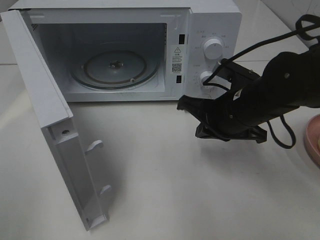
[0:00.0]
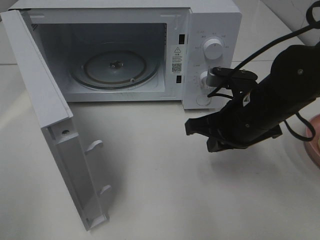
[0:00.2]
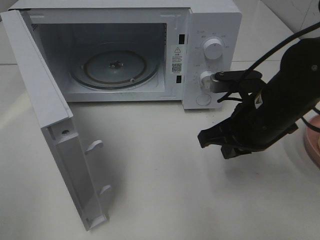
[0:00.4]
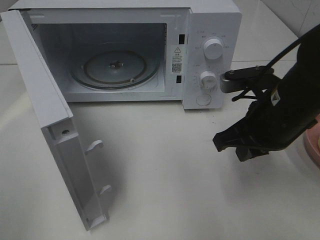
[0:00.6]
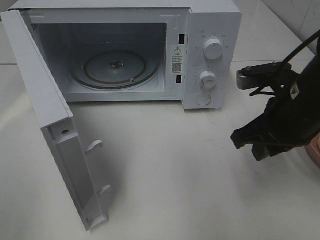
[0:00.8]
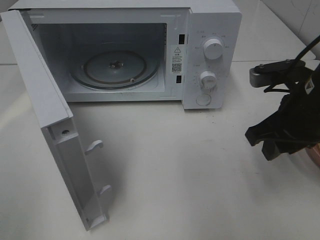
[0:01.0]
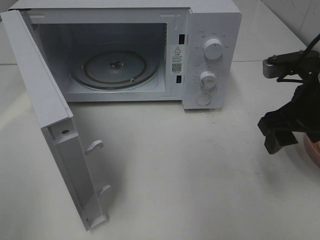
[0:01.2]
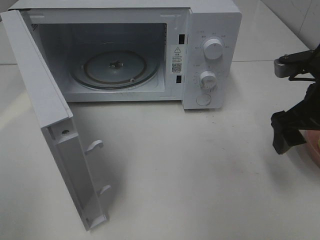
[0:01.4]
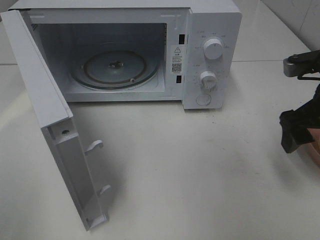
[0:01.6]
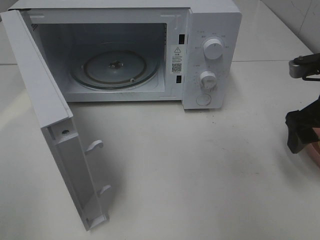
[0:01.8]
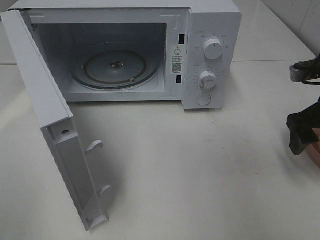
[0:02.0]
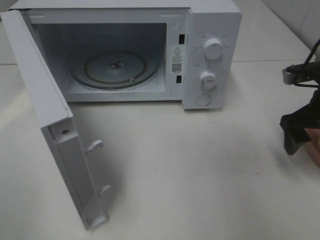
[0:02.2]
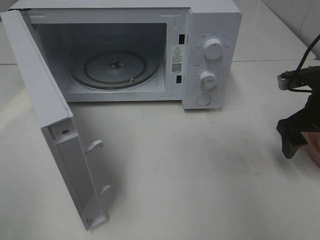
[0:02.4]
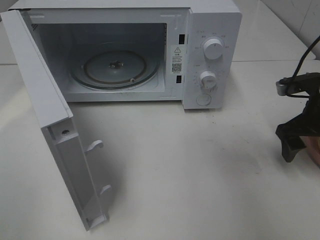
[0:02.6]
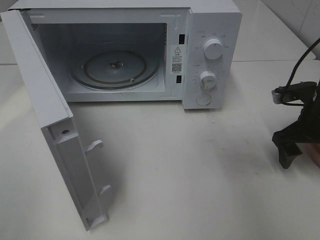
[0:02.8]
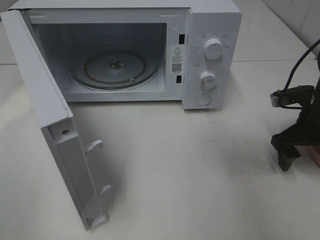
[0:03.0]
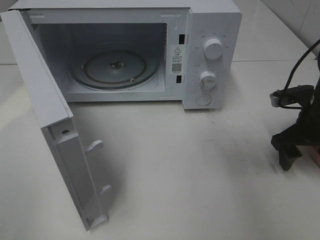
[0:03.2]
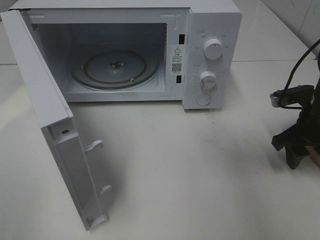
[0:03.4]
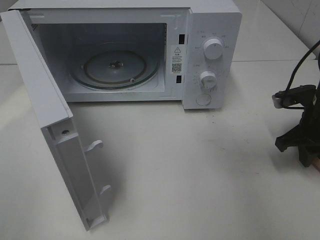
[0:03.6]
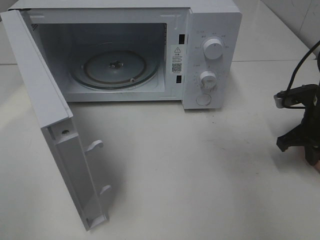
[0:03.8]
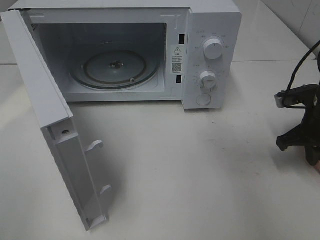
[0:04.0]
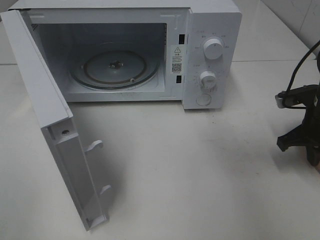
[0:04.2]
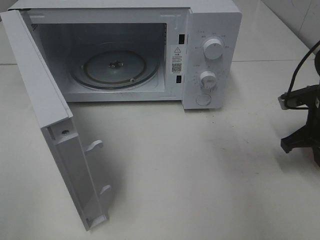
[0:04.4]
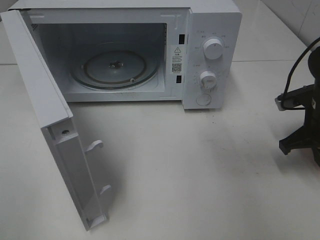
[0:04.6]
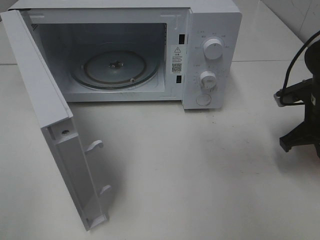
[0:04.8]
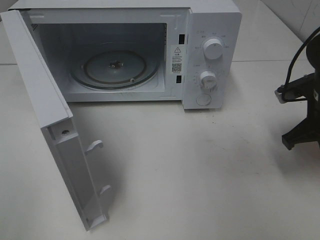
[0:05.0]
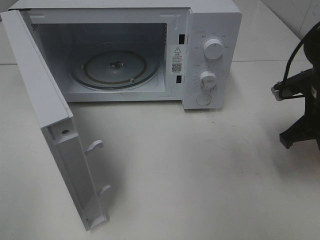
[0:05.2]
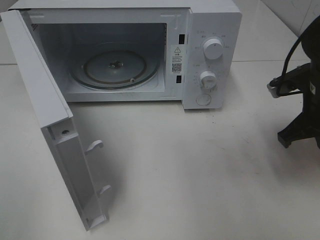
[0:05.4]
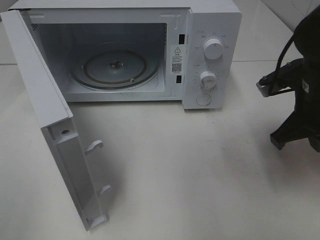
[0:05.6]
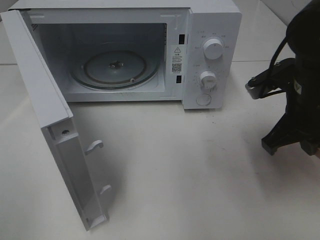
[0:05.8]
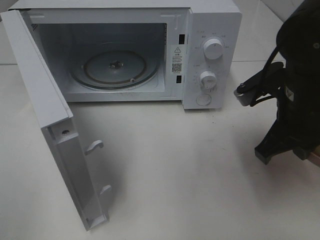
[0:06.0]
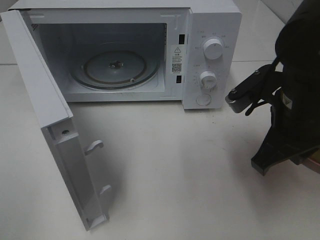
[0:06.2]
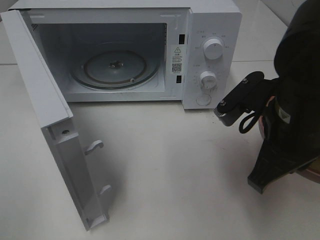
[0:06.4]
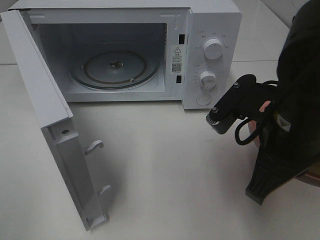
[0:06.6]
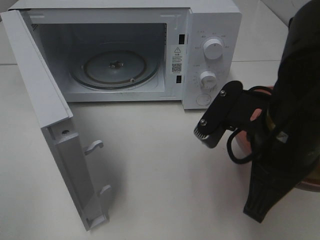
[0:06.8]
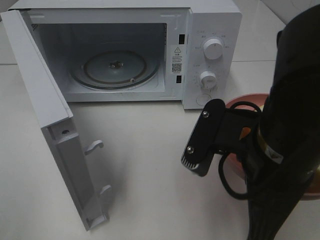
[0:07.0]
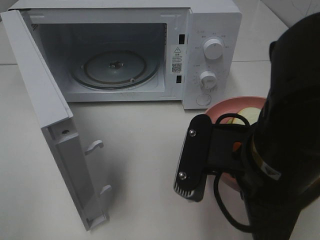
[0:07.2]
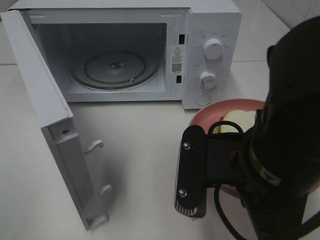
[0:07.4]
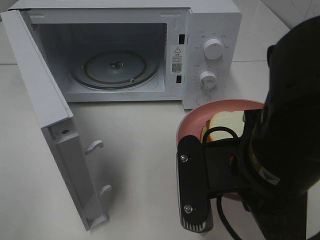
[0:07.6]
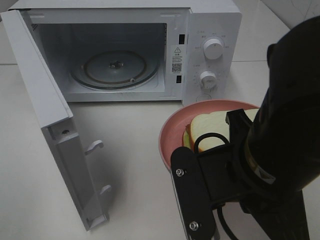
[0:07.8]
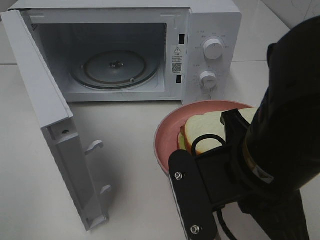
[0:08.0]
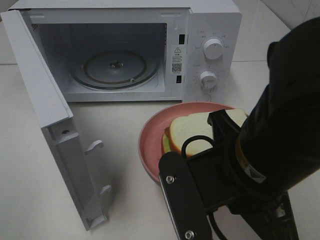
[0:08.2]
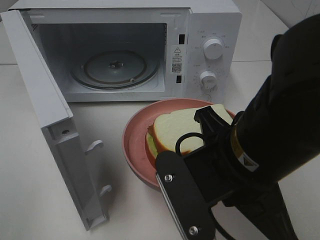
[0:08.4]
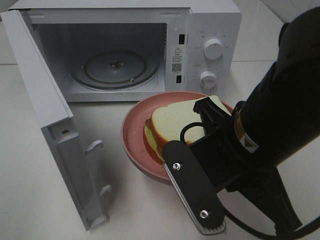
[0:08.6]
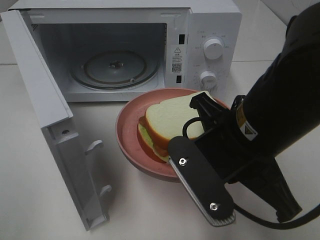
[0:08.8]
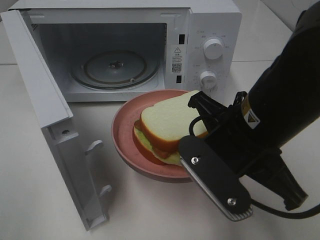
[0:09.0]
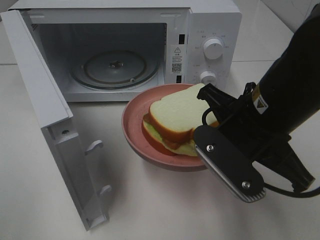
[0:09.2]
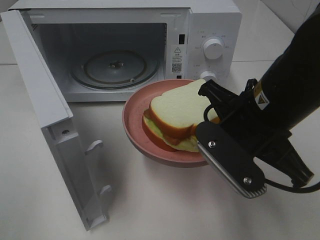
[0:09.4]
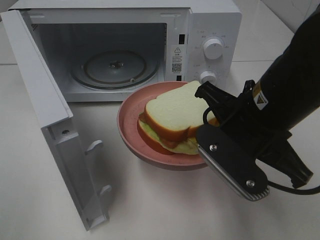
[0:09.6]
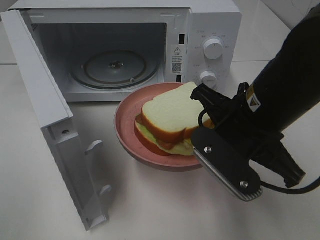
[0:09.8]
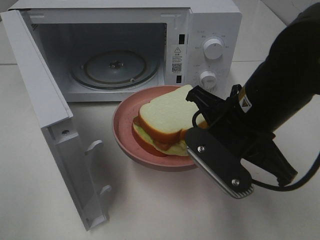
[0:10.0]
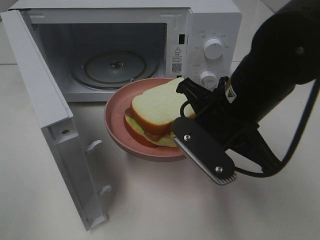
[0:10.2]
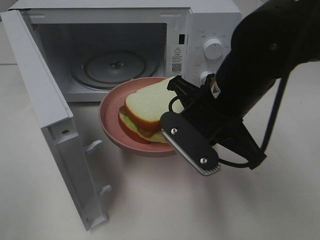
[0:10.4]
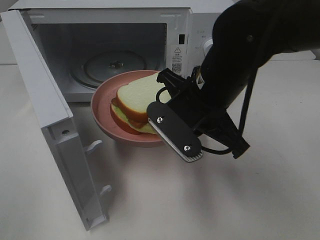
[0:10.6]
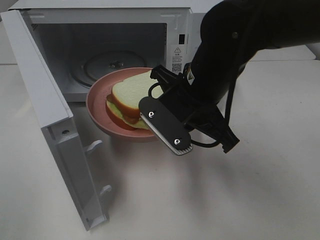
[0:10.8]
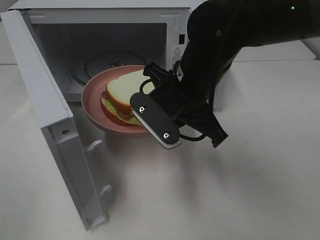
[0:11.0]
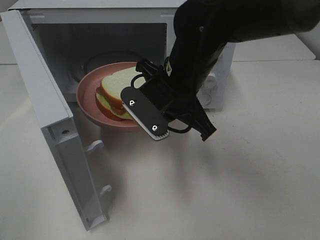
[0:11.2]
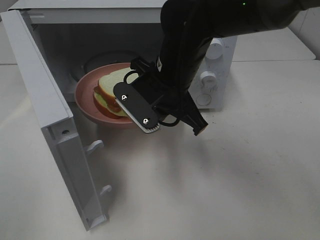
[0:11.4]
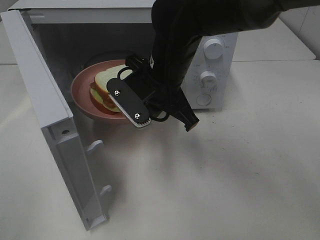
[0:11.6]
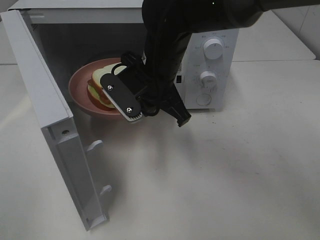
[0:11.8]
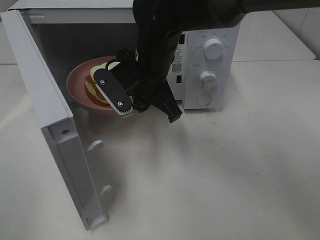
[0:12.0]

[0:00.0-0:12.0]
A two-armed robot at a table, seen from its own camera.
Task of the whole recording: Heat Sandwich.
Step, 0:00.0 to 0:04.6: Right hand: grab the plate with the sandwich.
0:00.0 to 0:01.6: The right gripper travels to the right and upward by roughly 15 cm, and opens its fingers.
0:01.6 to 0:03.0: The right gripper shifts approximately 10 cm downward and forward.
0:03.0 to 0:04.4: The right gripper closes up.
0:04.4 to 0:06.0: The right gripper moves to the left, upward and backward, approximately 15 cm.
0:06.0 to 0:07.6: The right gripper goes some 15 cm backward and to the left.
0:07.6 to 0:09.0: The right gripper moves forward, roughly 5 cm.
0:09.0 to 0:10.4: The right gripper is displaced forward by approximately 5 cm.
0:10.4 to 0:12.0: The right gripper moves forward and to the left, about 15 cm.

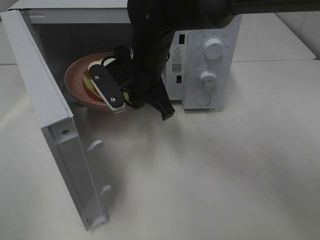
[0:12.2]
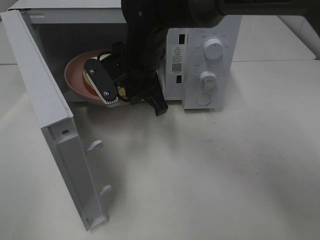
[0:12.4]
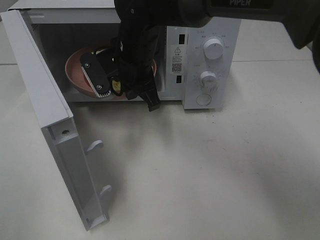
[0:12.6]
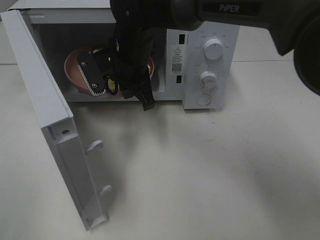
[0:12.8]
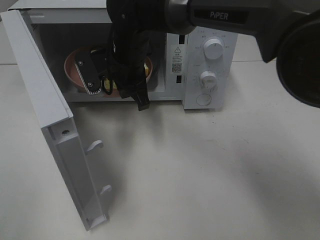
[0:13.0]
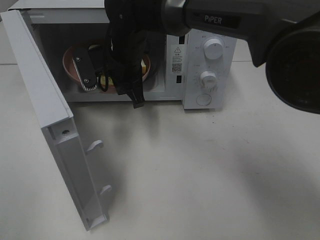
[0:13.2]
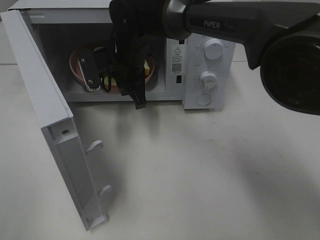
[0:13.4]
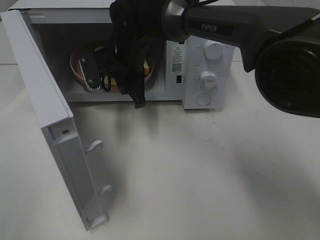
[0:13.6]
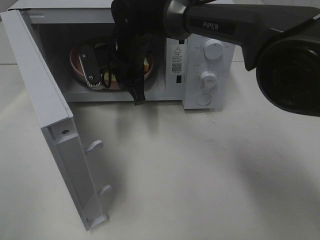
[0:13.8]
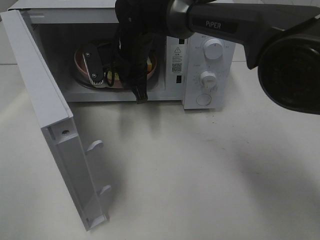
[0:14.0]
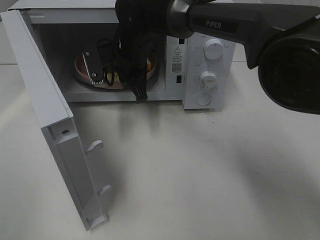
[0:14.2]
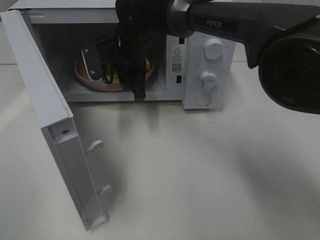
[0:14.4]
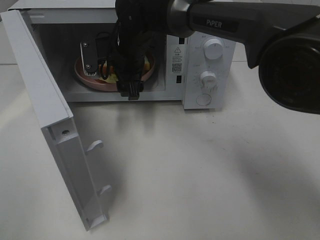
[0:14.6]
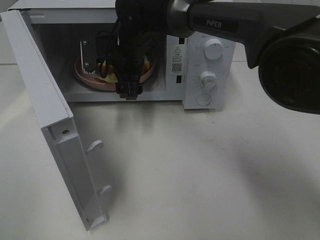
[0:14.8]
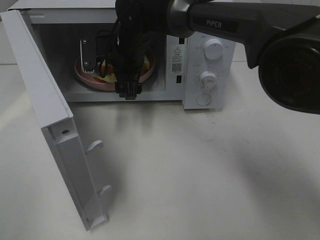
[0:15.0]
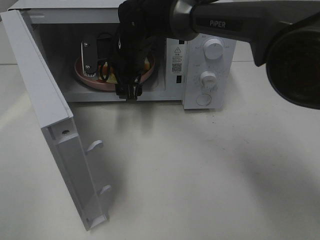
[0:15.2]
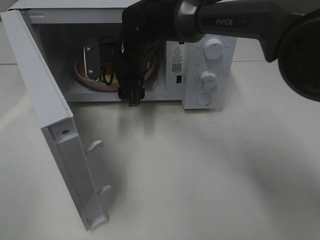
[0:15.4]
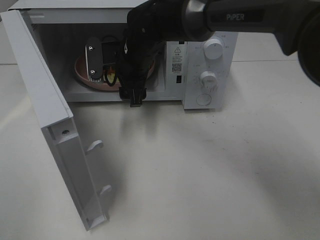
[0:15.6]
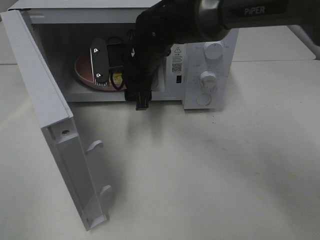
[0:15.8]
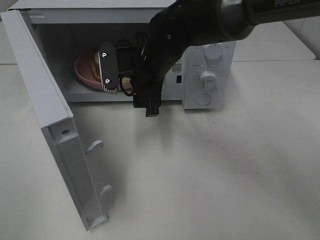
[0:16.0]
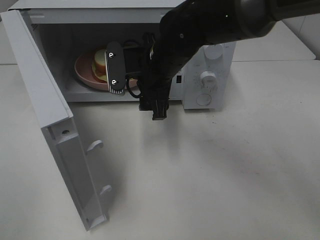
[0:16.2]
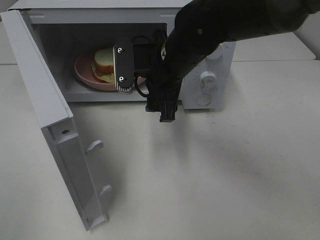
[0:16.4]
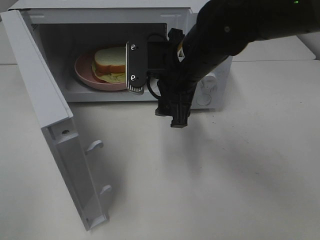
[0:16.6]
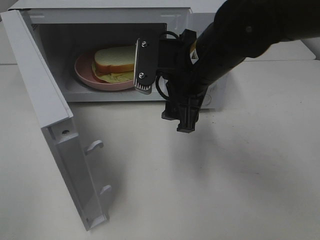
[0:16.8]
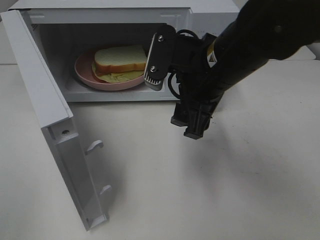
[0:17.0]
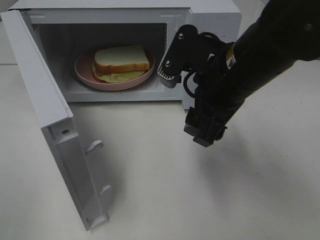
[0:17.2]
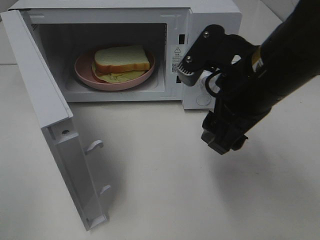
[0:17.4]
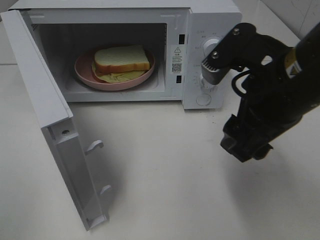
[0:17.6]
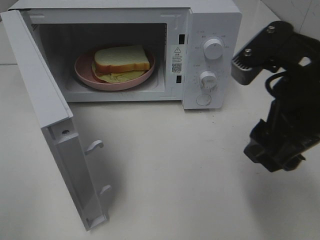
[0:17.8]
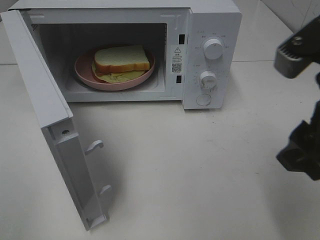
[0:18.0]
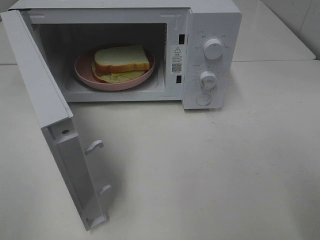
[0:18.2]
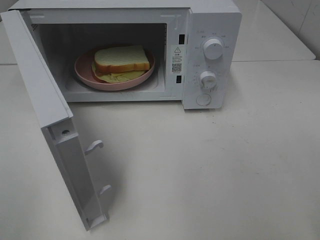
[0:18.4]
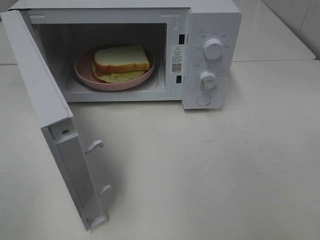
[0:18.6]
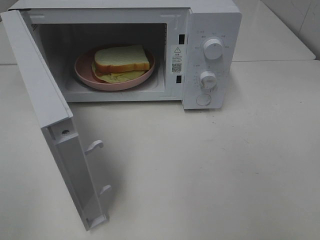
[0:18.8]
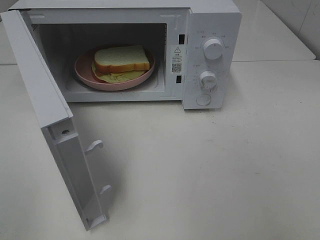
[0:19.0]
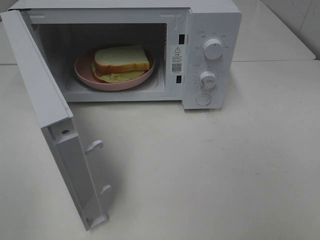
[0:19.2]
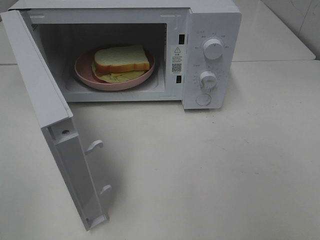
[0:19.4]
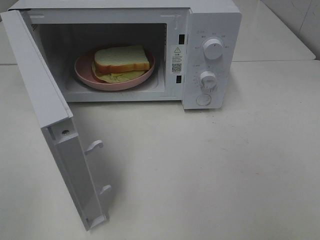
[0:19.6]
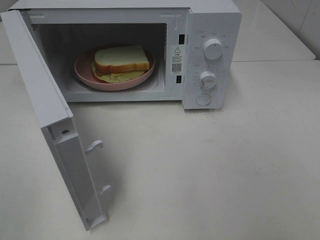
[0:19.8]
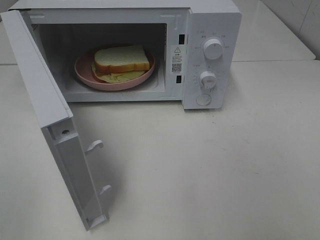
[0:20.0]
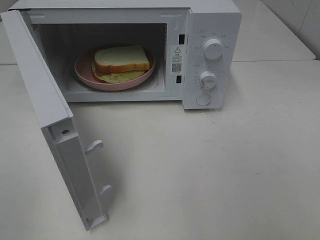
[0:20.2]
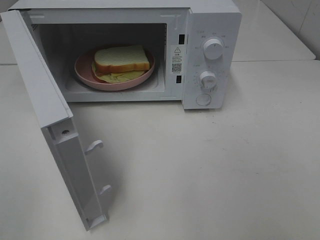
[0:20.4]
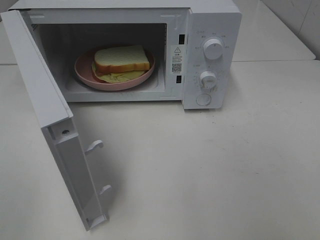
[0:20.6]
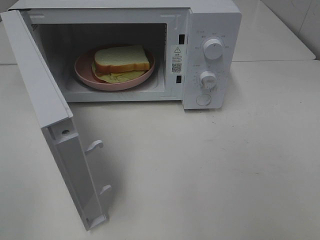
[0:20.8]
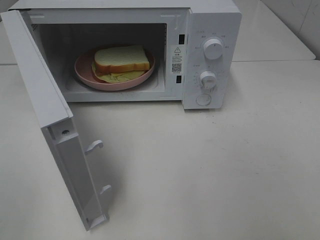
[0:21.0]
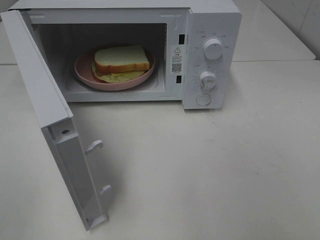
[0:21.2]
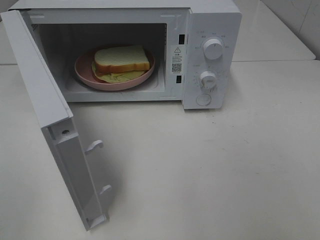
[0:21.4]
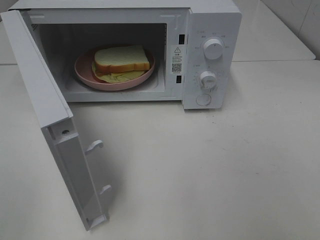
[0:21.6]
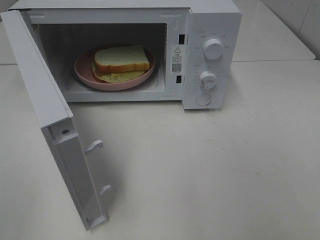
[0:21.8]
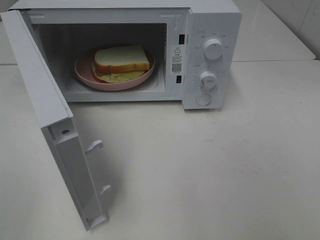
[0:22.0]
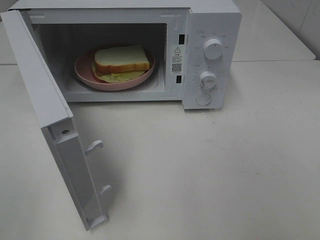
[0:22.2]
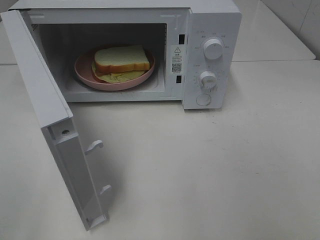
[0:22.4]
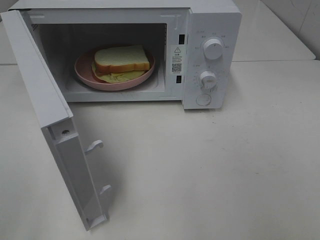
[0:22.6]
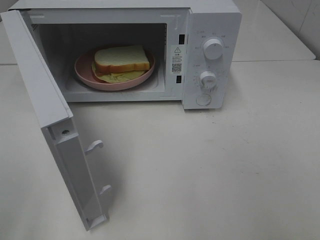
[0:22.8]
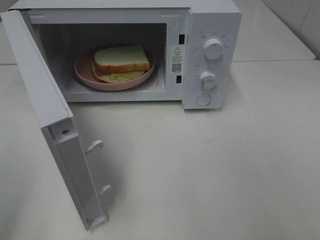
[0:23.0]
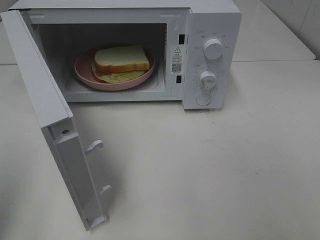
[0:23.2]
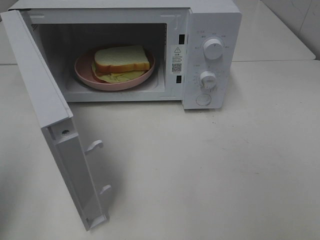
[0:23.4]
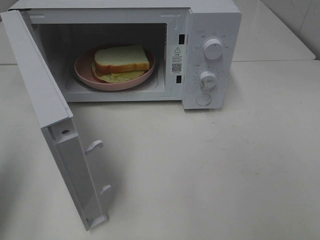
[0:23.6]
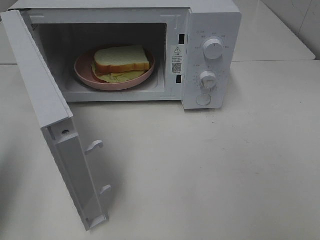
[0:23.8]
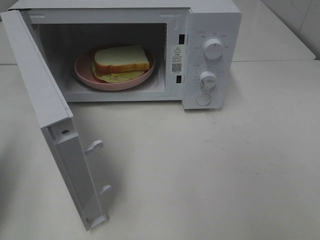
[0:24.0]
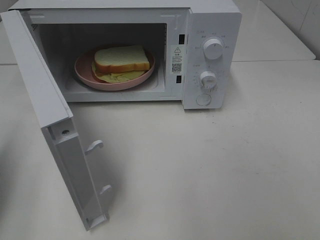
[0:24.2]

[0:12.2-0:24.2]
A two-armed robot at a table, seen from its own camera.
Task of the whole recording: Heat Sandwich.
Step, 0:12.2 to 0:15.8: Right hand: place the plate in the microwave.
0:12.2 to 0:13.8: The right gripper moves forward, approximately 5 cm.
0:13.8 to 0:15.2: The right gripper opens up.
0:15.2 to 0:16.6: The right gripper moves backward and to the right, roughly 15 cm.
0:16.6 to 0:18.2: The right gripper moves backward, to the right and upward, roughly 25 cm.
0:18.2 to 0:19.8: The right gripper travels backward and to the right by some 15 cm.
0:19.8 to 0:21.2: Both grippers stay about where they are.
0:22.6 to 0:24.2: The left gripper moves forward, roughly 15 cm, and closes up.
